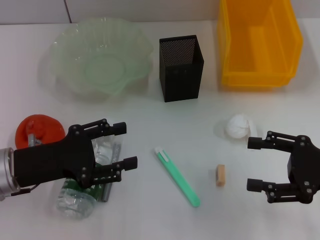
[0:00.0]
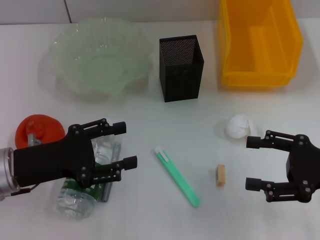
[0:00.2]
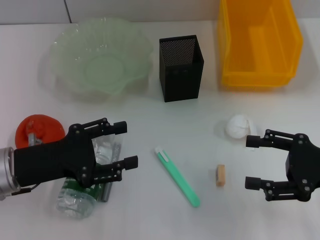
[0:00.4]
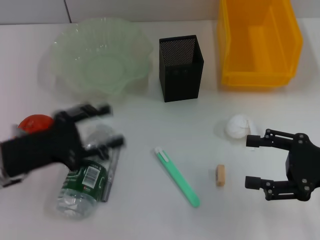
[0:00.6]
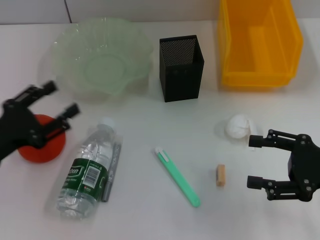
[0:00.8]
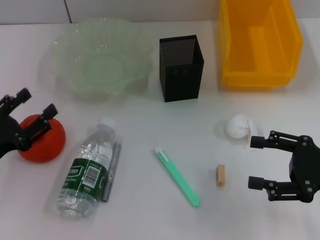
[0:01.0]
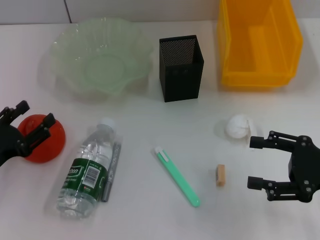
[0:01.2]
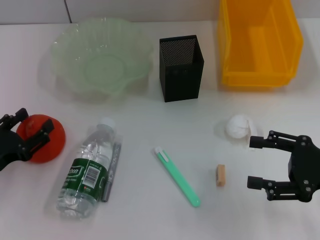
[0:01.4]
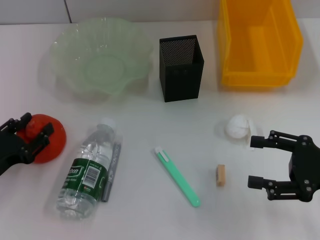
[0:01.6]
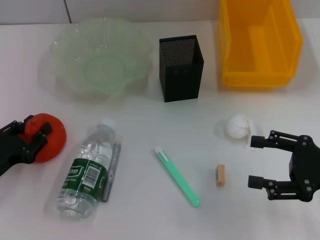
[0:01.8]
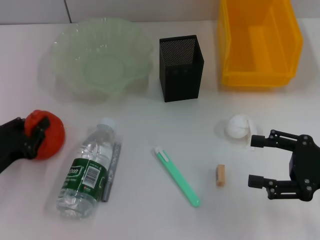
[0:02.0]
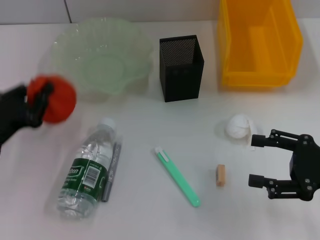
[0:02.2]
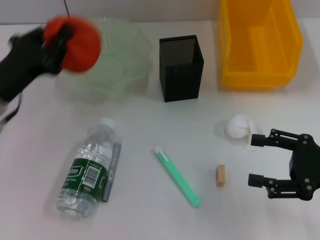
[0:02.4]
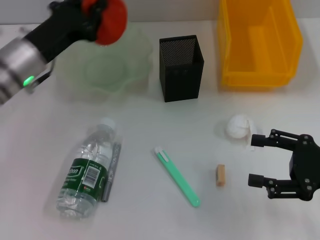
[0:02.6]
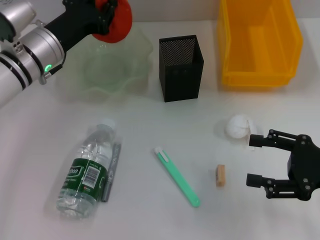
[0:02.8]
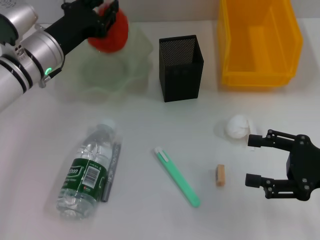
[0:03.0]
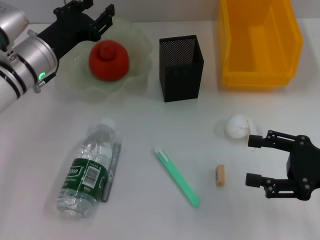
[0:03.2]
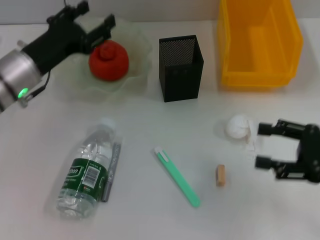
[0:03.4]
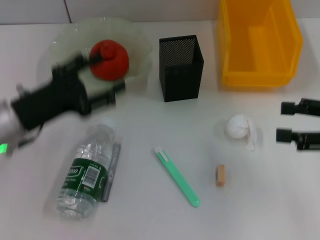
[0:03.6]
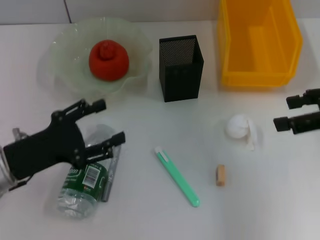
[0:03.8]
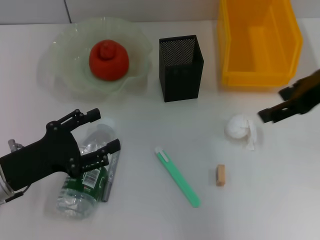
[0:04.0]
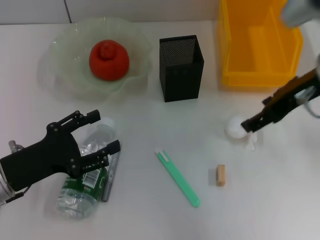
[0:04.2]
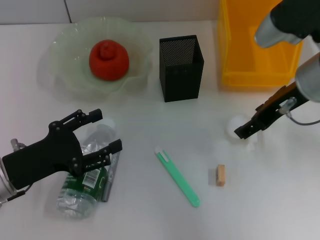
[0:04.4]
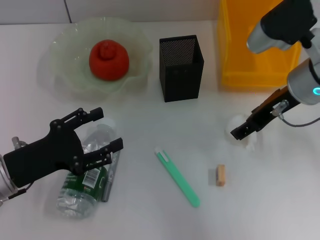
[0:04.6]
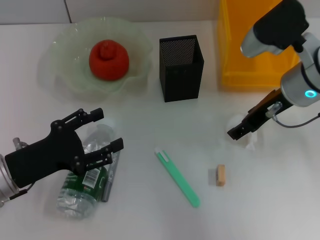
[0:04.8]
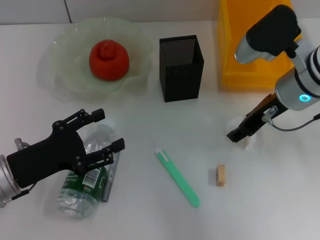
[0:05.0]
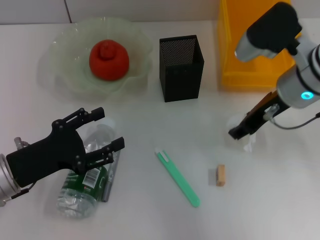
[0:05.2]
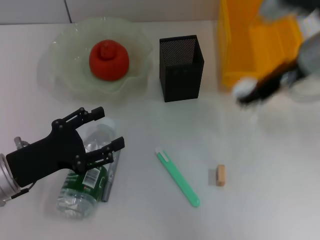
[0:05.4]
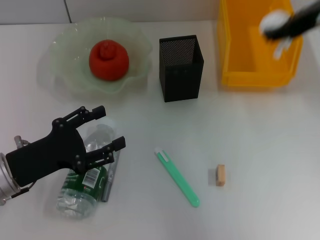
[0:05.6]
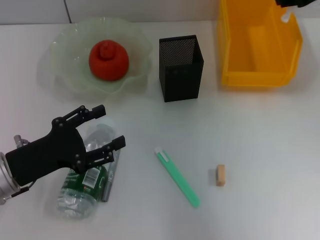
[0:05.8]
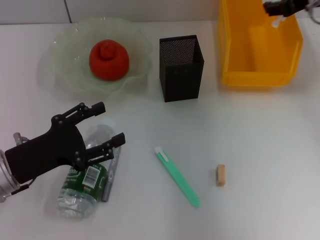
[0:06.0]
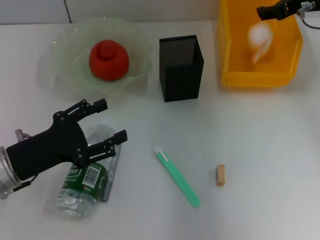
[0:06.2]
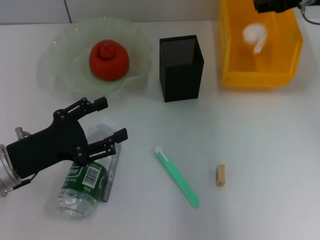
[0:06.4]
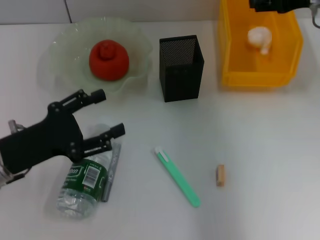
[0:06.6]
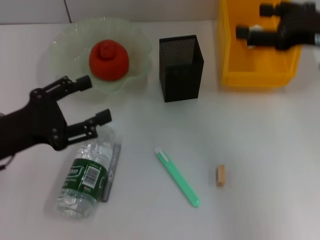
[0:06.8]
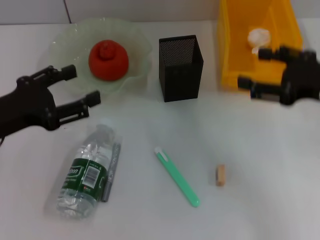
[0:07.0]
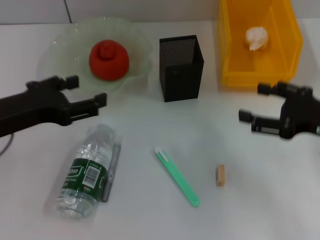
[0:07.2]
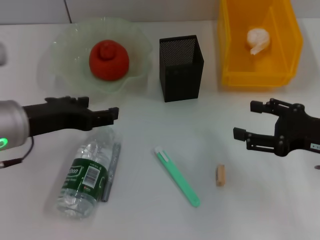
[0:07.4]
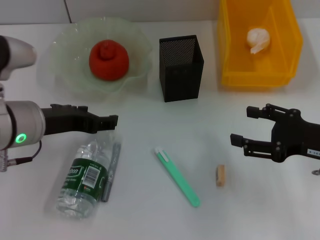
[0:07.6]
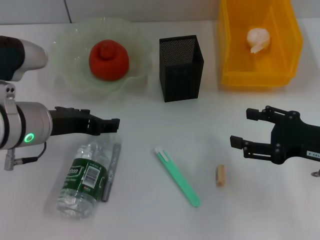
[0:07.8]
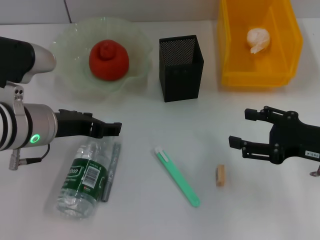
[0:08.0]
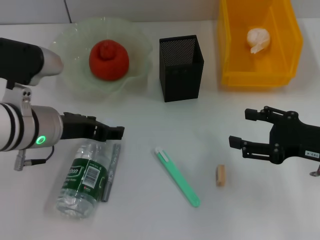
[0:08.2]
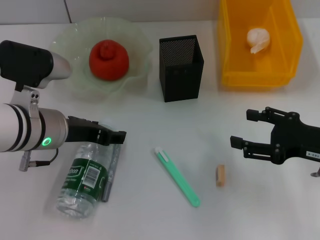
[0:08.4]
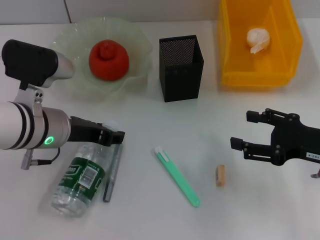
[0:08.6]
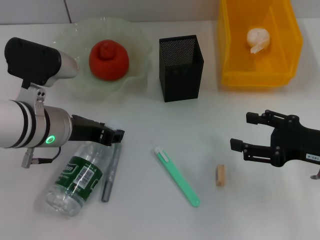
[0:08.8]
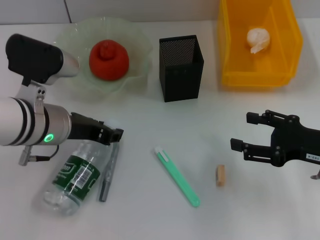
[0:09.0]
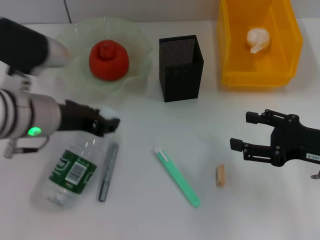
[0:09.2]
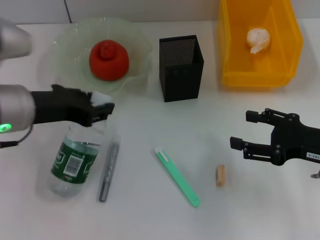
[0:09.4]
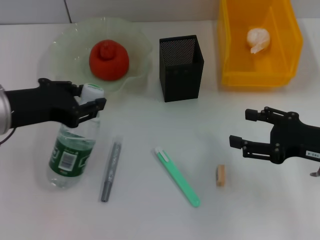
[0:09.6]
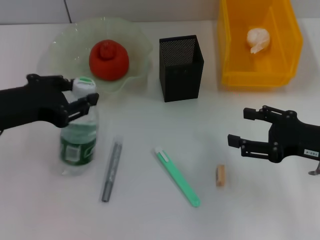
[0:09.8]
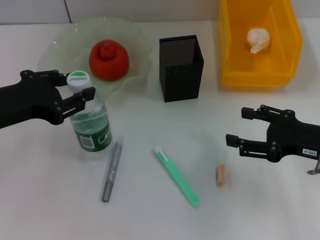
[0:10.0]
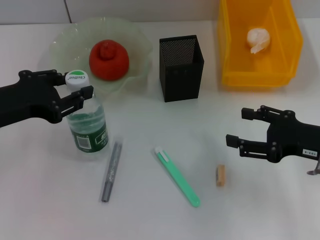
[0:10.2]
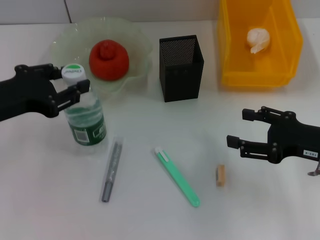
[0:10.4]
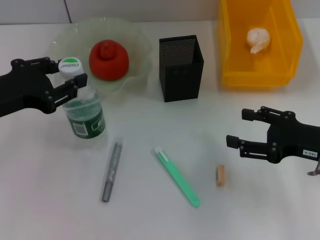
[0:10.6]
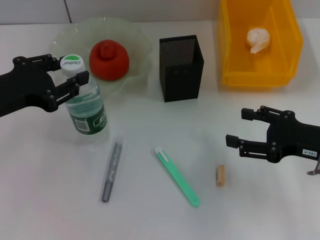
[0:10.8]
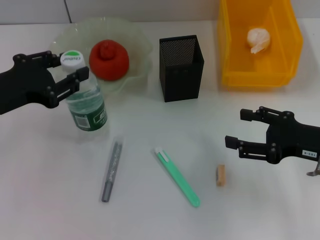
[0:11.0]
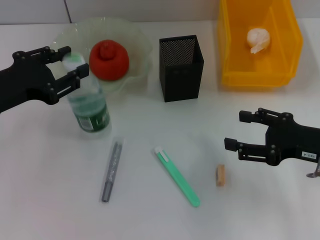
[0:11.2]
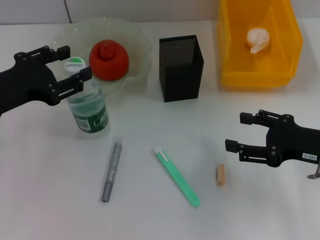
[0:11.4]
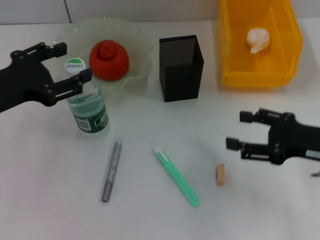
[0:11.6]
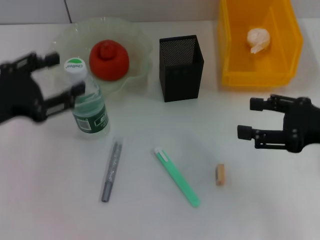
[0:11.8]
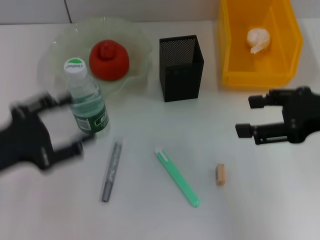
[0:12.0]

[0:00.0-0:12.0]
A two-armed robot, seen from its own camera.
Step, 0:00.0 to 0:01.8: Grab the orange with the left hand.
Step, 0:02.0 to 0:03.2: Place the orange into the fruit bowl with the left hand.
Step, 0:03.4 to 0:05.0: Grab the paper ball with the right hand.
Step, 0:05.2 to 0:06.4: Place the paper ball into the trash can with the right hand.
Step, 0:06.6 to 0:08.6: Grab the water bottle with the left hand.
Step, 0:09.0 to 0:11.2: Place the water bottle on the table with the left hand.
0:00.0 to 0:01.6: The left gripper moves to the left and downward, approximately 10 cm.
0:01.6 to 0:03.0: The left gripper heads forward, to the right and upward, covering some 25 cm, and closes up.
0:03.0 to 0:04.4: The right gripper shifts approximately 20 cm forward, to the left and upward, while the left gripper heads backward, covering roughly 15 cm, and opens its fingers.
0:04.4 to 0:06.0: The right gripper heads forward and to the right, covering some 10 cm, moves some 10 cm upward and comes back, and closes its fingers.
0:06.0 to 0:07.6: The left gripper is displaced upward and to the right by roughly 10 cm. Meanwhile the right gripper goes approximately 20 cm backward and downward, and opens.
0:07.6 to 0:09.0: The left gripper closes up.
0:09.0 to 0:10.4: The left gripper travels to the left by approximately 10 cm.
0:10.4 to 0:12.0: The left gripper heads backward, covering some 5 cm, and opens up; the right gripper travels upward by about 10 cm.

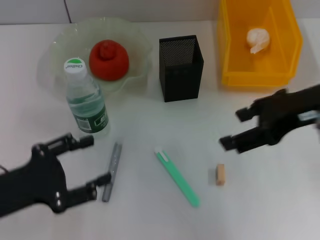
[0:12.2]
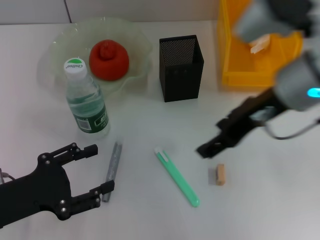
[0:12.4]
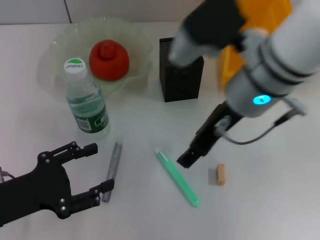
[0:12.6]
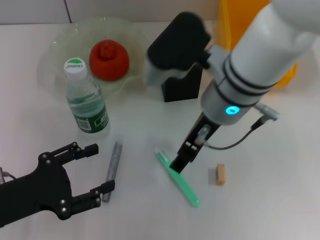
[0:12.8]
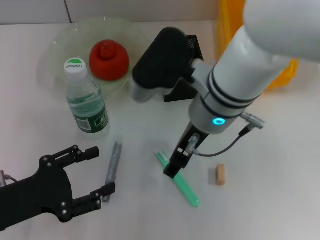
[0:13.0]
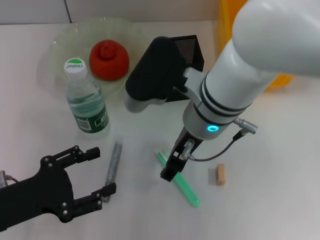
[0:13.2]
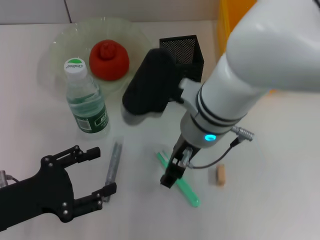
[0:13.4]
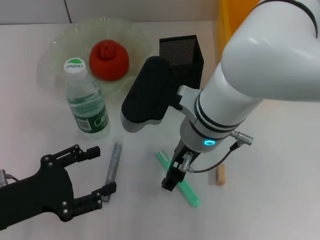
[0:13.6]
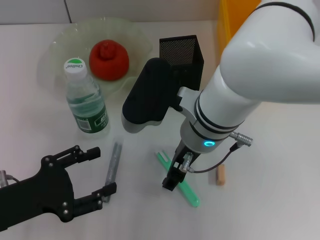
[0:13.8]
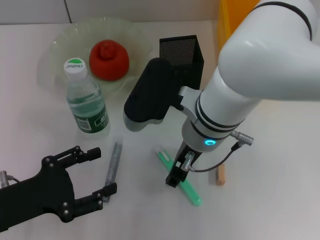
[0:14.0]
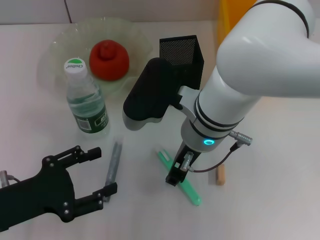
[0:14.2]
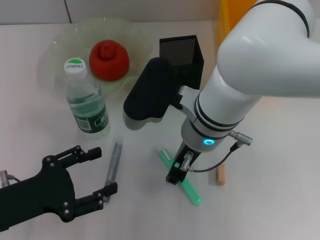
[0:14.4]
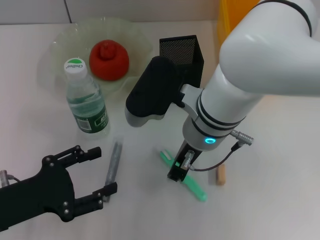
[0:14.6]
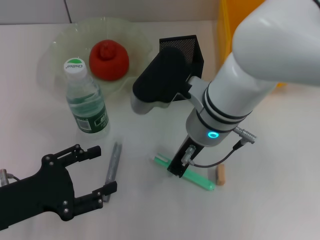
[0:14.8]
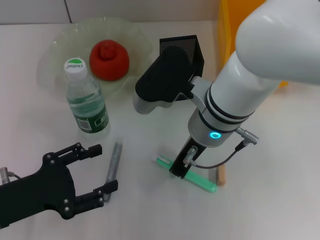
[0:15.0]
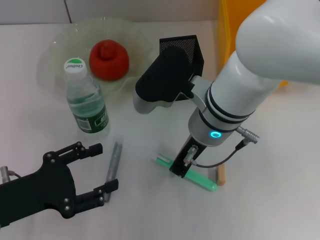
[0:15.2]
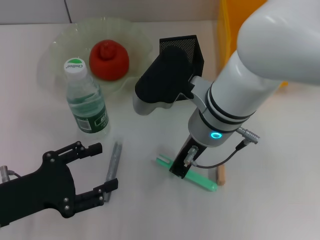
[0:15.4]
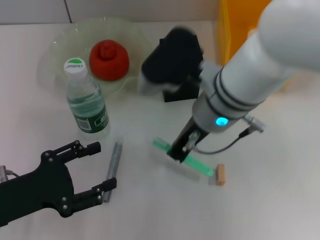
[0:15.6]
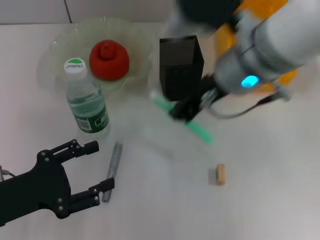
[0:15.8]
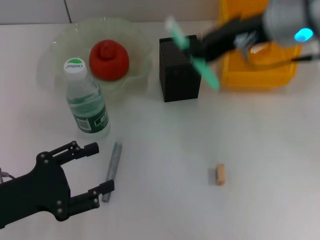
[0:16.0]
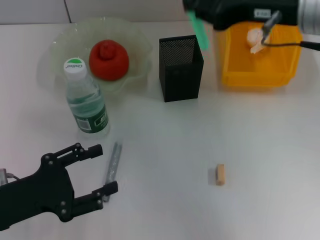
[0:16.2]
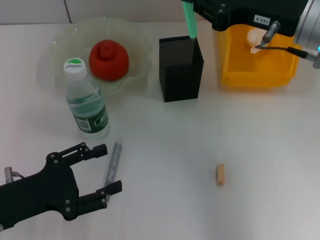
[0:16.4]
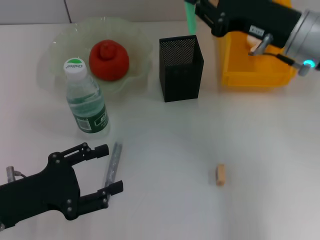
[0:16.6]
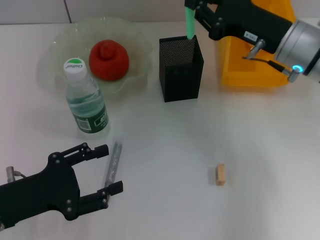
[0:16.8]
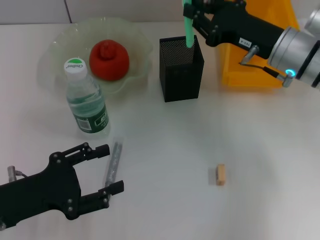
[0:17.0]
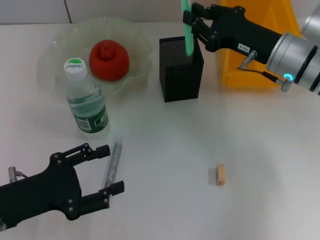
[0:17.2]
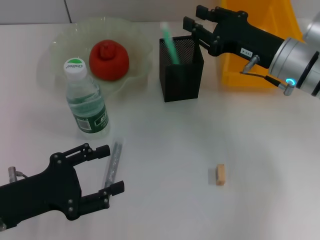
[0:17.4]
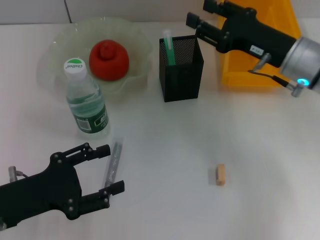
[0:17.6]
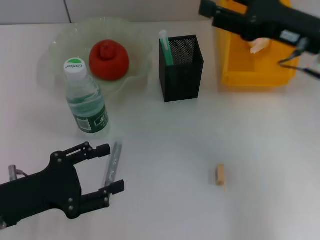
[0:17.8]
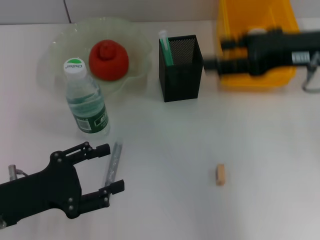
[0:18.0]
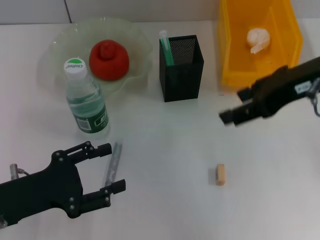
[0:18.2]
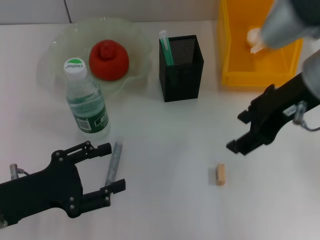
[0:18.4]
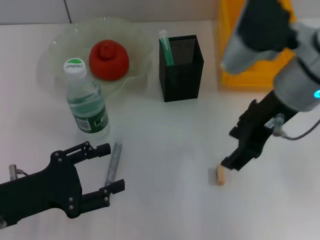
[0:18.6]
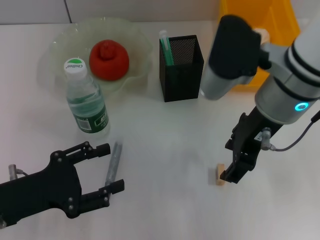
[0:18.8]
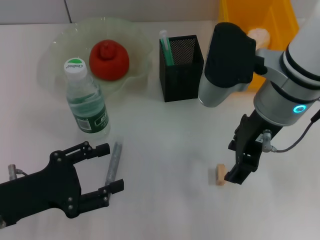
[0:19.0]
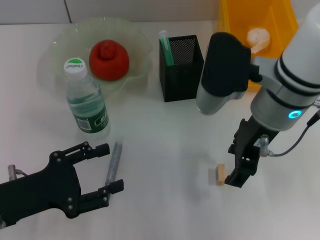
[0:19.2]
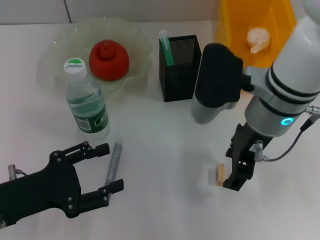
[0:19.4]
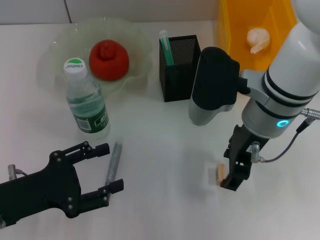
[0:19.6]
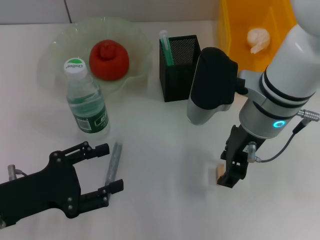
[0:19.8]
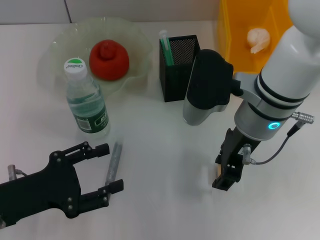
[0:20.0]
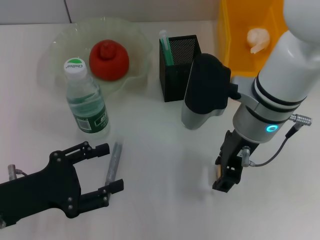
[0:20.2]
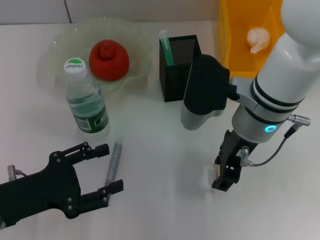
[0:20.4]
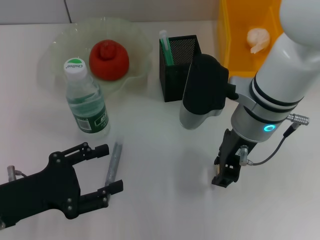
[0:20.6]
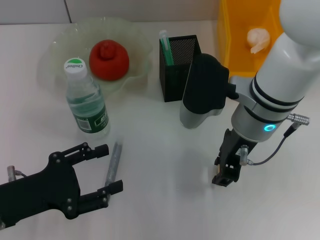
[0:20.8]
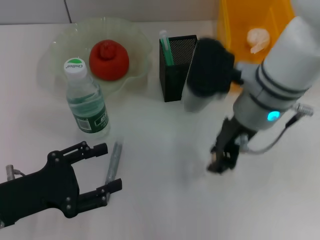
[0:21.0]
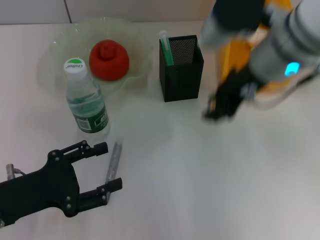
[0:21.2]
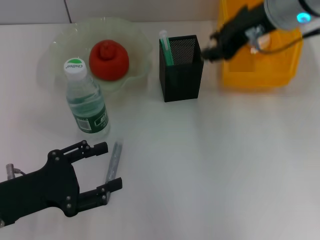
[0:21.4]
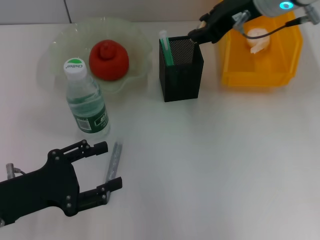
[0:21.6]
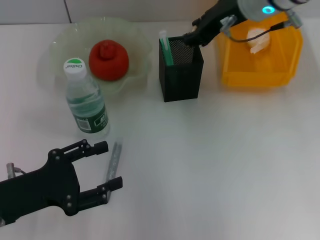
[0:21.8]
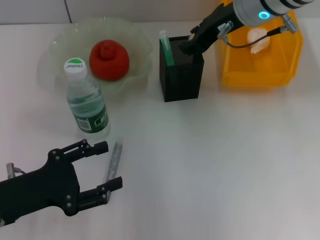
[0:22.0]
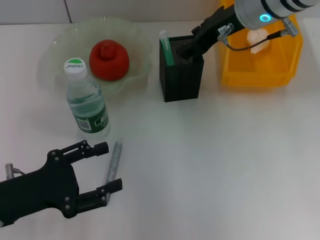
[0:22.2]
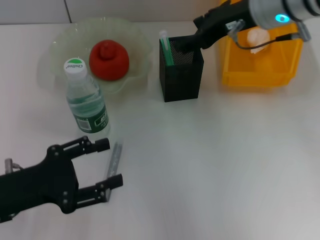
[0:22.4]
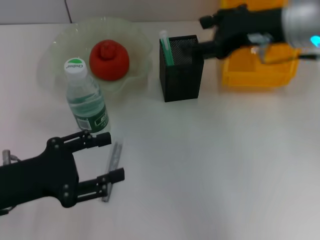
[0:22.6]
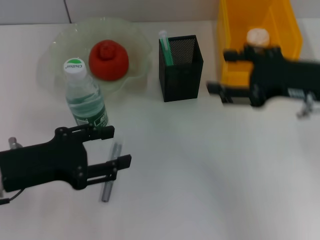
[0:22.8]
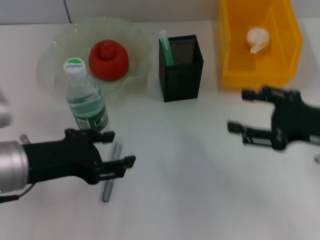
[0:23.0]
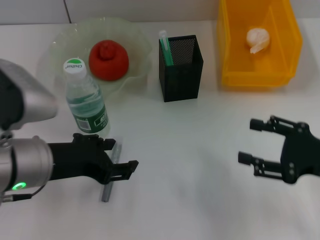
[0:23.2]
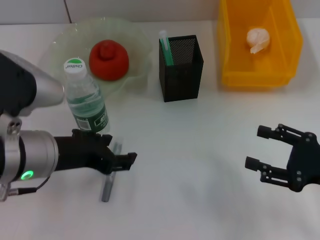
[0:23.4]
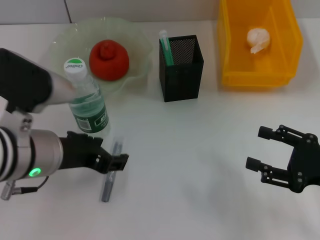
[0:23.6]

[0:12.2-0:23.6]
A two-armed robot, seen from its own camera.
Step, 0:12.2 to 0:15.2: Grab the blue utility knife with the right hand.
Step, 0:15.4 to 0:17.2: Place the blue utility knife into the pen holder with the right hand.
Step, 0:17.4 to 0:20.6: Grab the eraser with the right hand.
Step, 0:20.8 to 0:22.0: Put the eraser into the pen holder with the right hand.
0:12.2 to 0:13.6: The right gripper goes some 20 cm to the left and downward.
0:13.6 to 0:15.0: The right gripper closes its fingers.
0:15.0 to 0:16.4: The right gripper heads to the right and upward, covering about 15 cm.
0:16.4 to 0:17.8: The right gripper travels downward and back again, roughly 10 cm each way, and opens its fingers.
0:17.8 to 0:19.4: The right gripper goes about 10 cm to the left.
0:19.4 to 0:20.8: The right gripper closes.
0:20.8 to 0:22.2: The right gripper travels forward and upward by about 10 cm.
0:22.2 to 0:23.6: The right gripper moves backward, to the right and downward, about 30 cm, and opens its fingers, while the left gripper moves to the right, upward and forward, approximately 15 cm.
